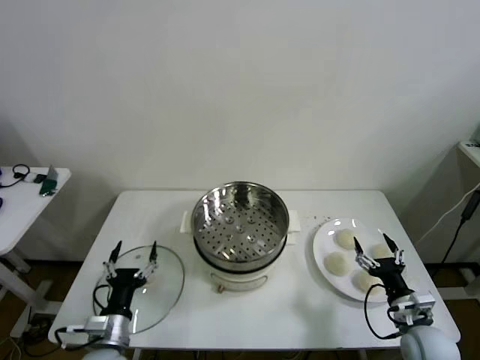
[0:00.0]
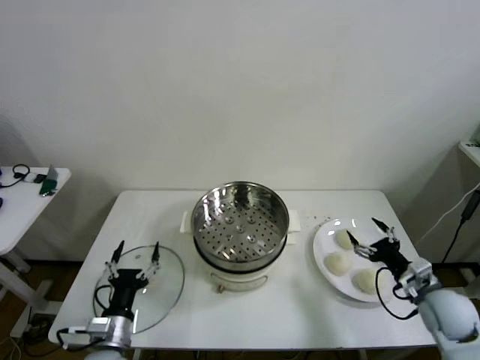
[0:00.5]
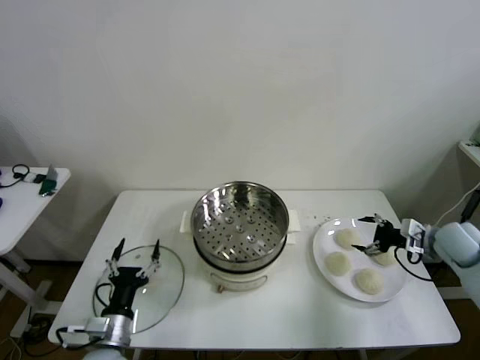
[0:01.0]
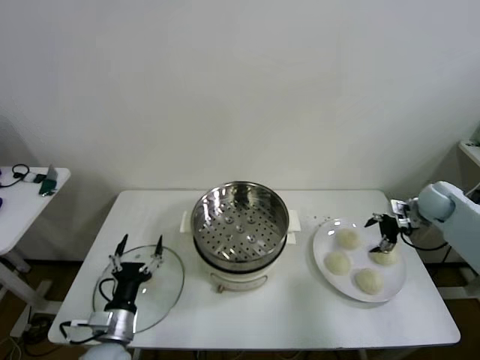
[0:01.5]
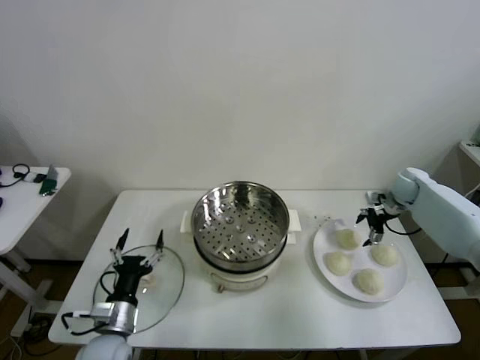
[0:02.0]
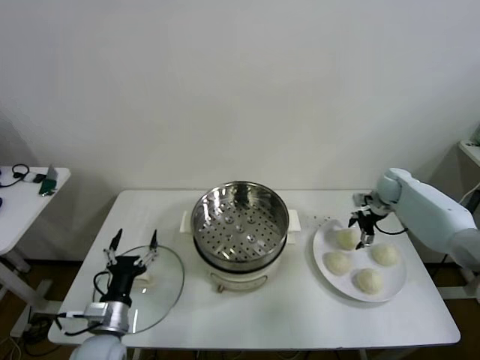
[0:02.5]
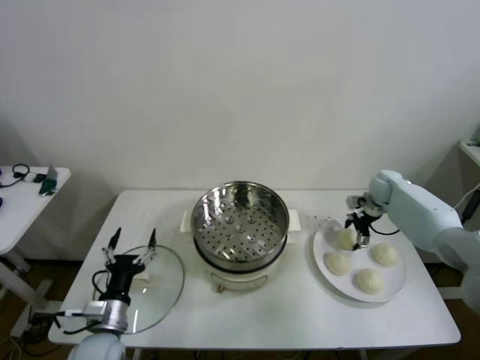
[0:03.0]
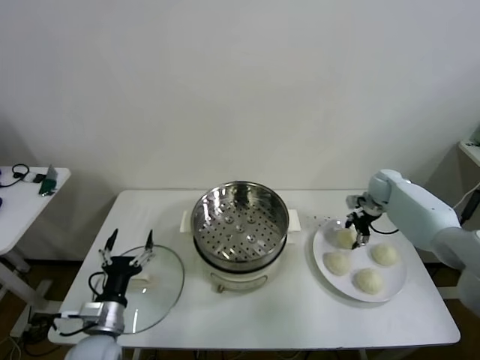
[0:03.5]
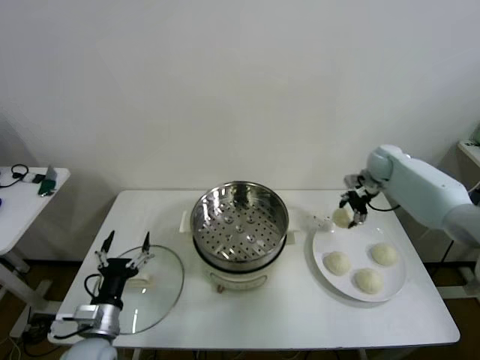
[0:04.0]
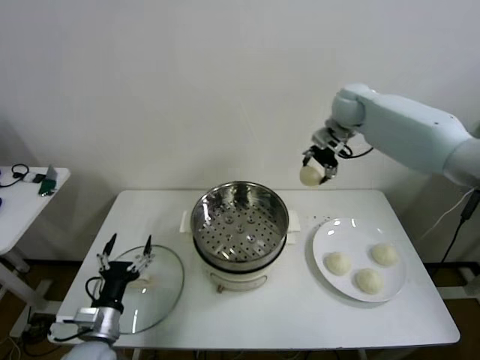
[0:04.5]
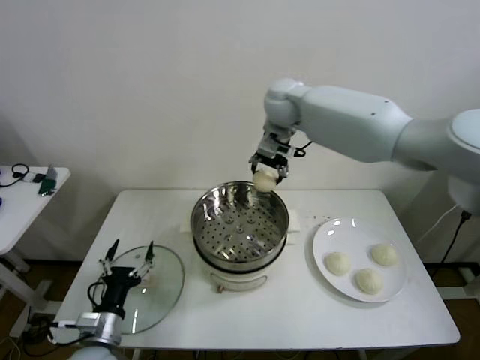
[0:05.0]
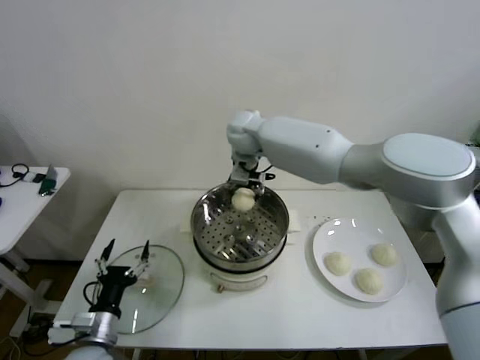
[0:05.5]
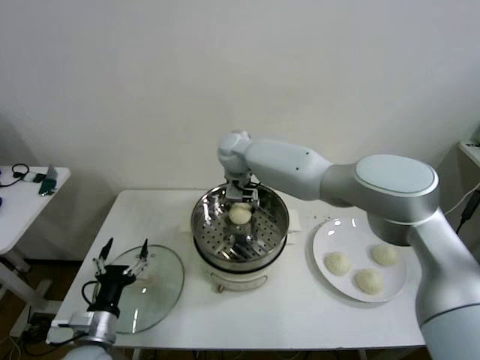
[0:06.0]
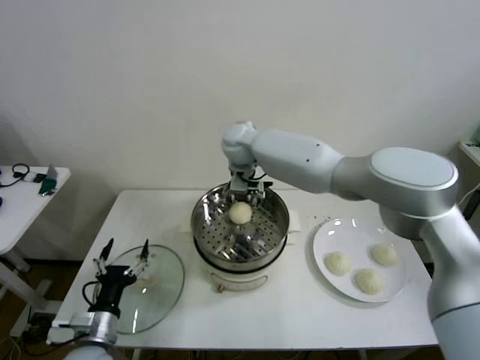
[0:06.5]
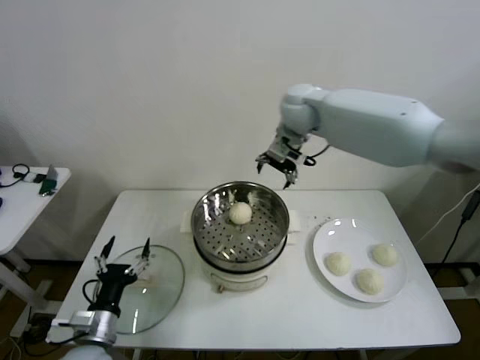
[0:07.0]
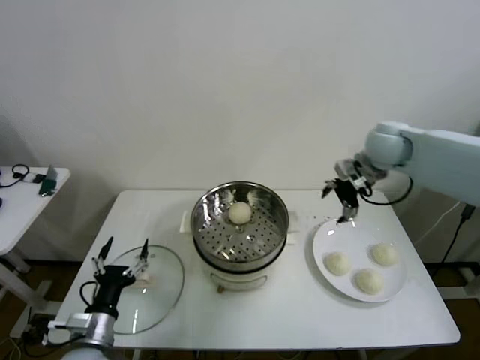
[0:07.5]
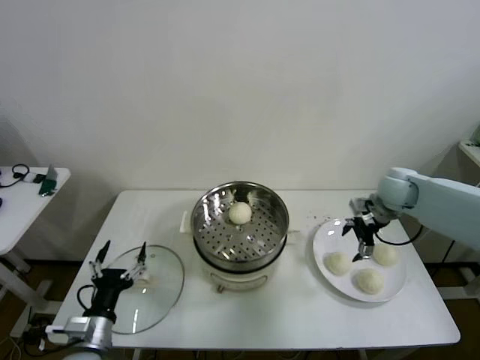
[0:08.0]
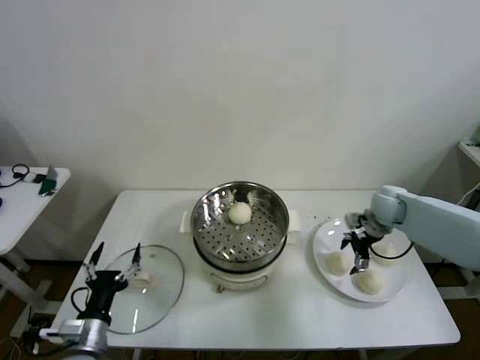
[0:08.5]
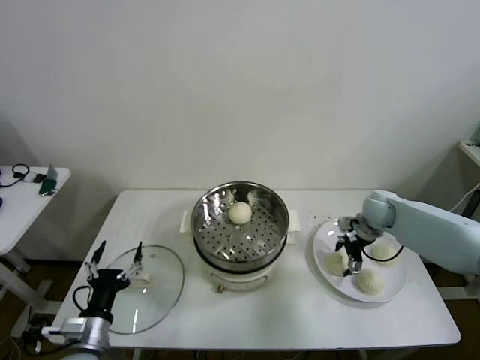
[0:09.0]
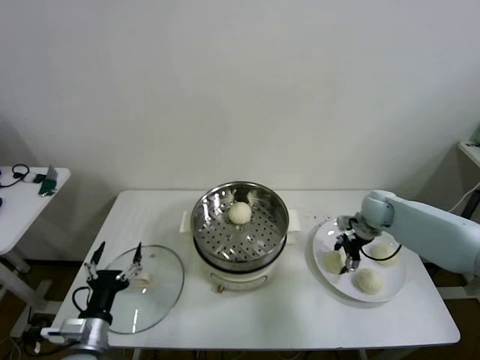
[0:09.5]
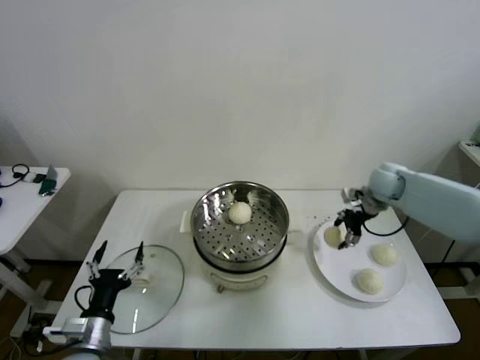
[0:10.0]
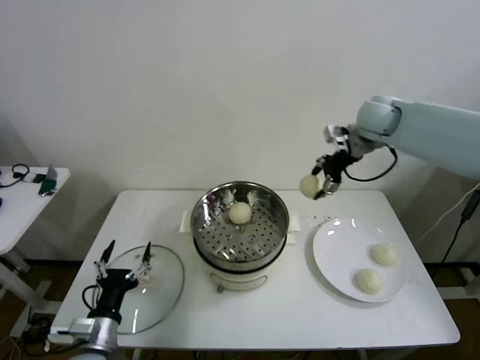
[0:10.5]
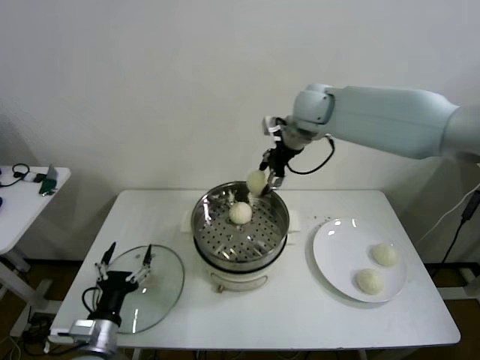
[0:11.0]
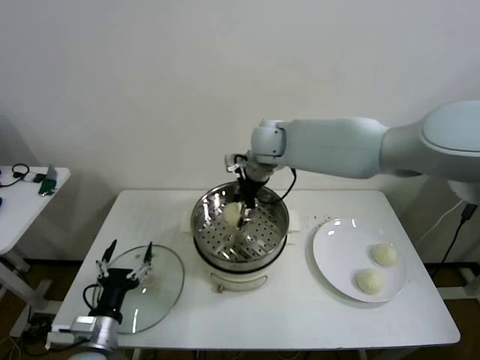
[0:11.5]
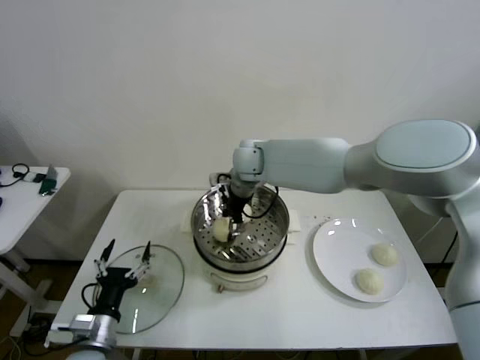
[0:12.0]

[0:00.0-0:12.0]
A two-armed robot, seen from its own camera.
Step, 0.0 to 3.0 s: Grasp the baozi in the plate with right gripper.
Step, 3.5 to 6.0 s: Place the baozi on the steamer with right gripper.
Step, 6.5 to 9.0 s: Grasp the baozi in the plate with right gripper.
2.0 to 4.0 s: The right gripper shifts about 10 cm upward and to the left, and closes up.
4.0 to 6.0 s: The right gripper travels to the left by approximately 40 cm, and opens its fingers.
6.0 to 8.0 s: The right gripper heads to the right, covering roughly 40 cm.
8.0 to 10.0 s: The right gripper reaches approximately 10 cm downward, then returns, and closes up.
10.0 to 12.0 s: The right gripper moves to the left, approximately 35 cm.

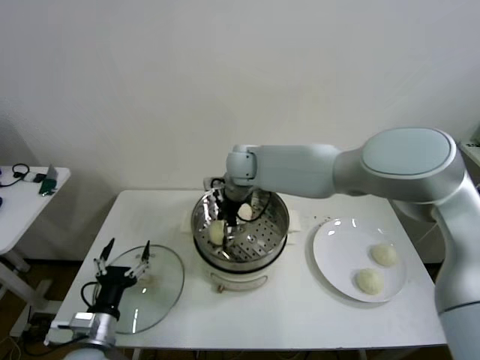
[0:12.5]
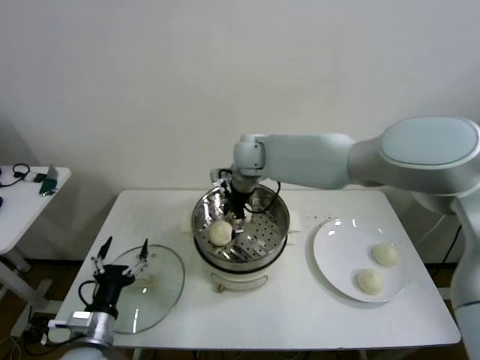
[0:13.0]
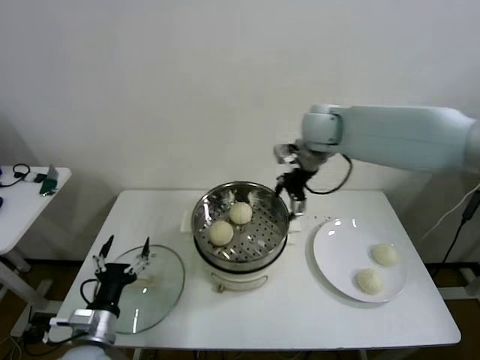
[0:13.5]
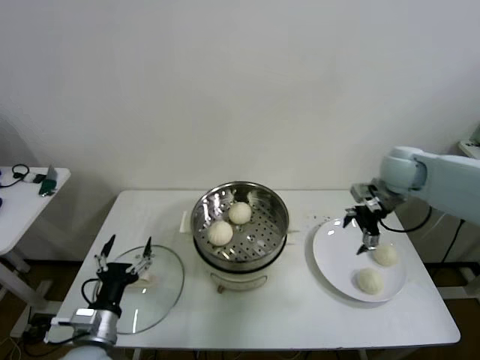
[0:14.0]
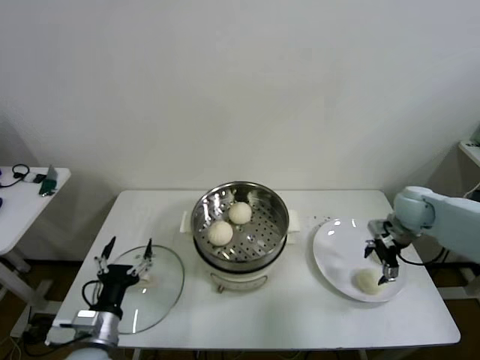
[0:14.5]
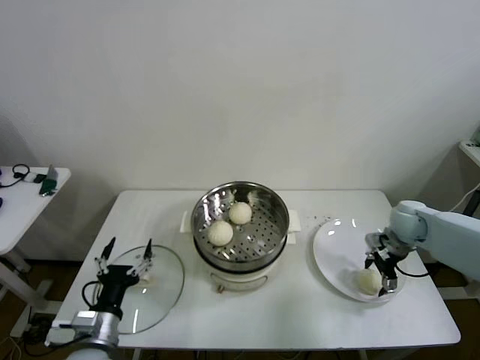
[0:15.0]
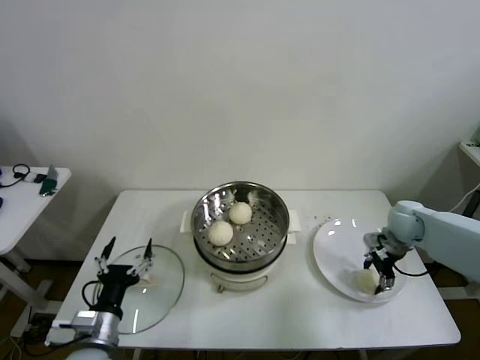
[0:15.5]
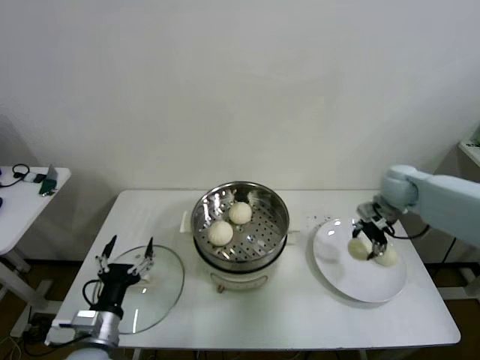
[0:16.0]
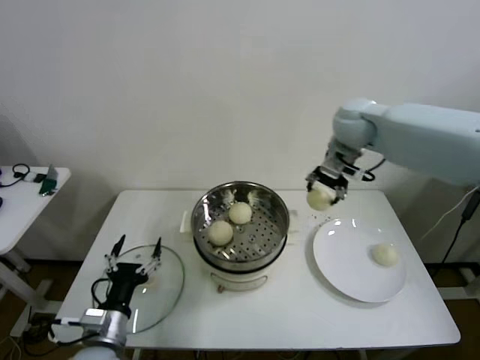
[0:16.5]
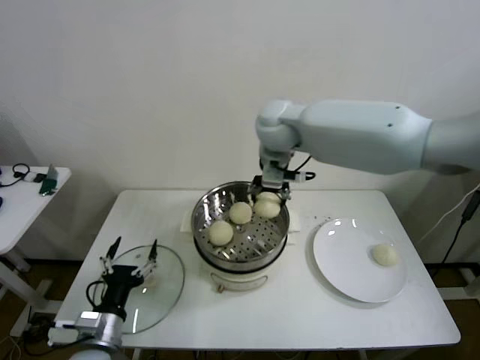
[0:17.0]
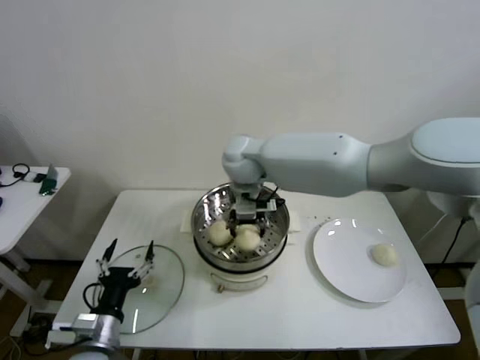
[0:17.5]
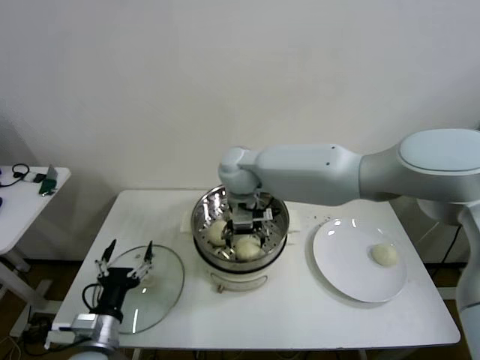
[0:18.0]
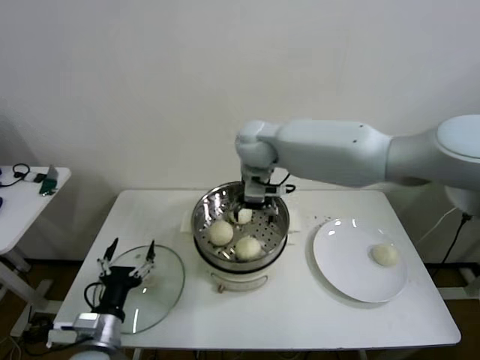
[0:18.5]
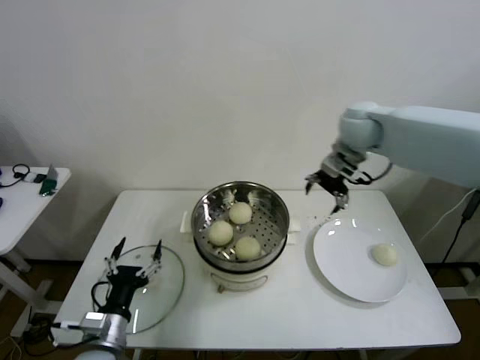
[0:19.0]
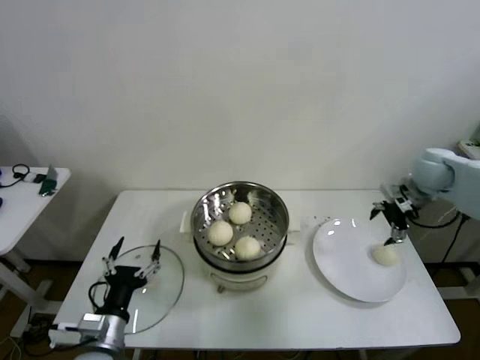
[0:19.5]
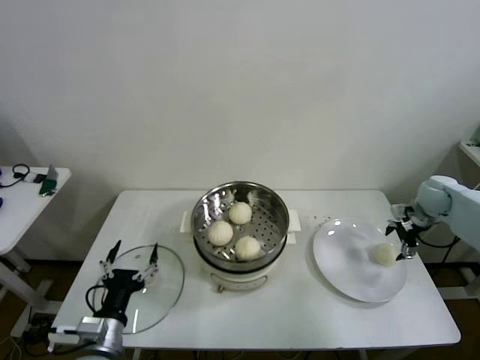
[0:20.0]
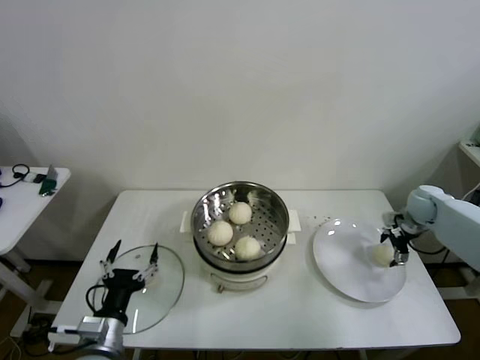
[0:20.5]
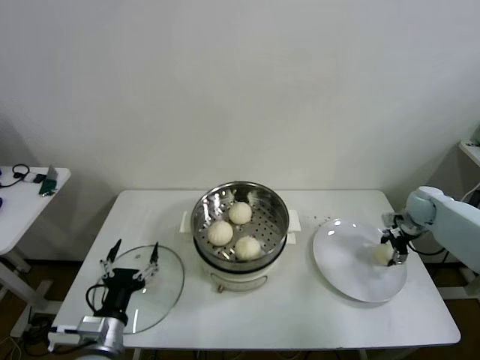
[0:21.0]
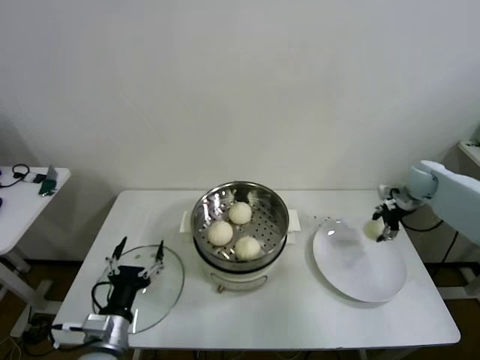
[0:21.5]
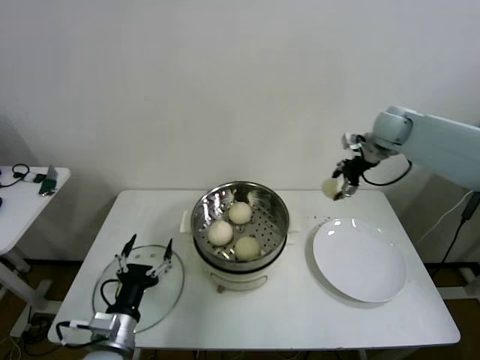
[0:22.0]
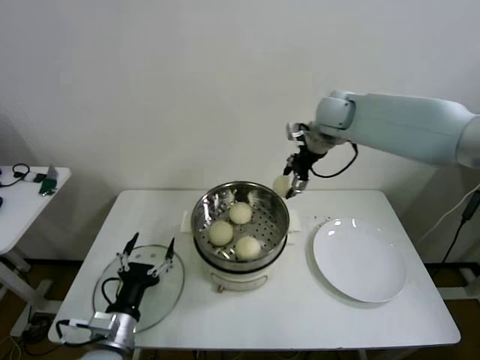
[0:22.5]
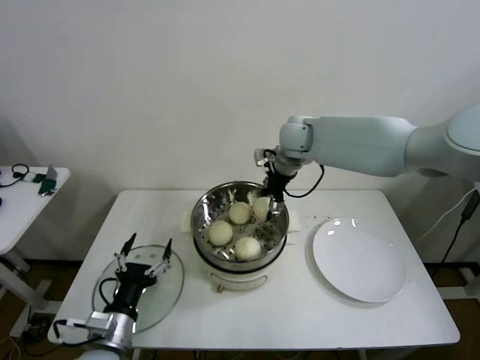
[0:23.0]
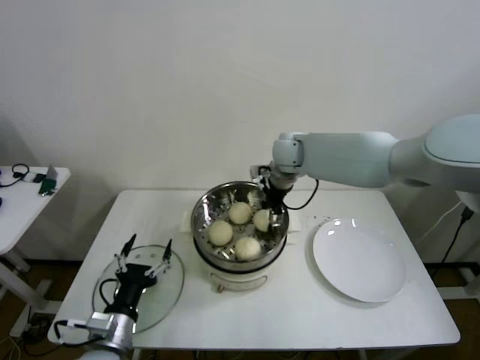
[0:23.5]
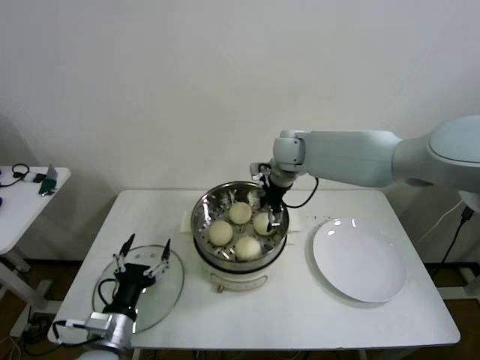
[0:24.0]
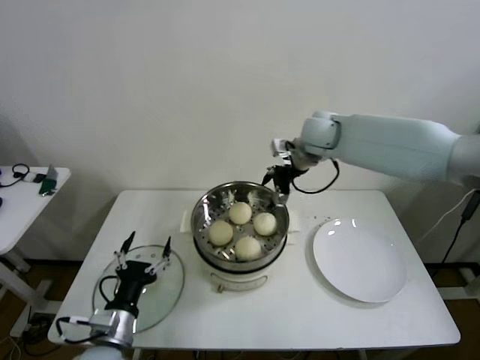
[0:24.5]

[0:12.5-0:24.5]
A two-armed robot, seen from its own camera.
Step, 13.0 to 15.0 s: Grasp the baozi in the plate with right gripper.
Step, 15.5 to 18.0 s: Place the baozi on the steamer with right gripper.
Step, 18.5 to 20.5 s: Grasp the baozi in the plate with right gripper.
Step, 21.0 to 23.5 s: Place the baozi on the steamer with right gripper.
12.5 to 14.5 s: The right gripper travels to the right by some 40 cm, and opens up.
14.5 to 16.5 s: The right gripper shifts roughly 25 cm upward and to the left, and closes up.
16.5 to 18.5 s: The right gripper is displaced to the left by about 20 cm, and opens.
18.5 to 20.5 s: The right gripper heads to the right and downward, covering roughly 50 cm.
20.5 to 22.5 s: The right gripper heads to the left and upward, covering some 35 cm, and closes.
22.5 to 24.5 s: The right gripper opens its fingers.

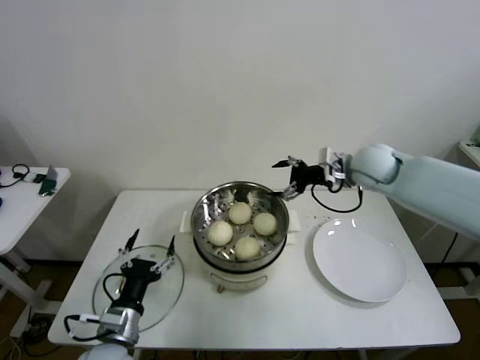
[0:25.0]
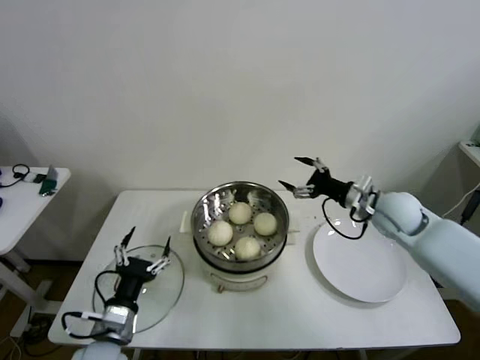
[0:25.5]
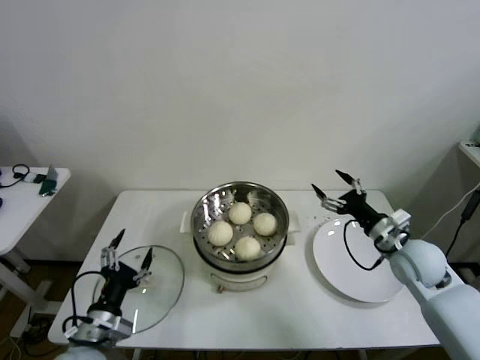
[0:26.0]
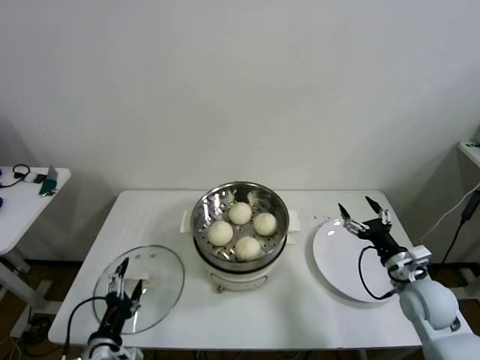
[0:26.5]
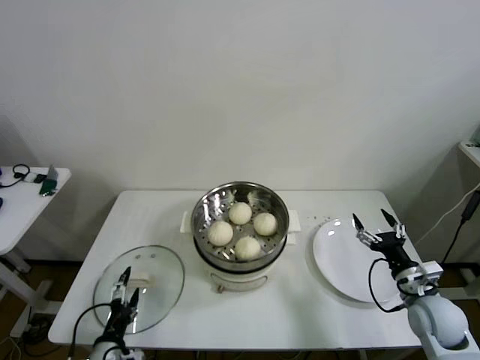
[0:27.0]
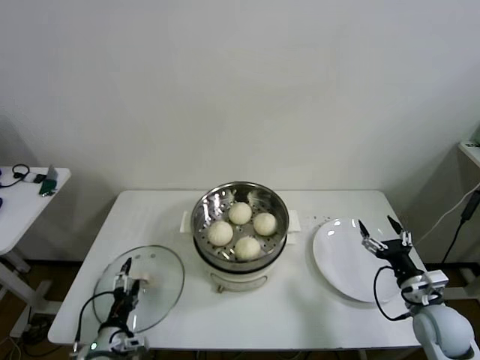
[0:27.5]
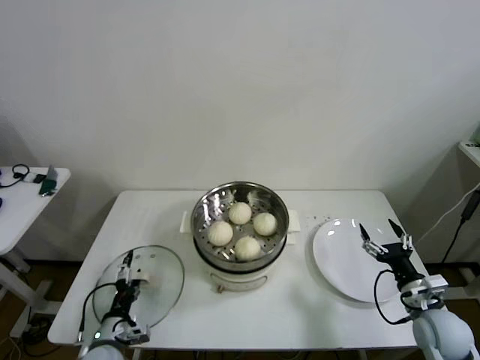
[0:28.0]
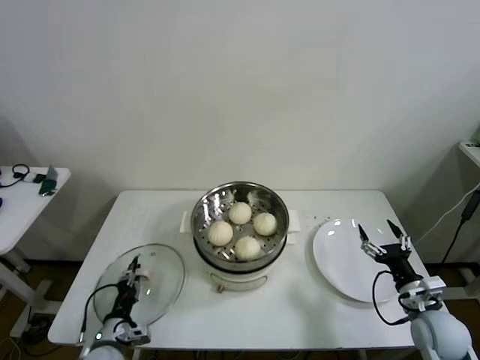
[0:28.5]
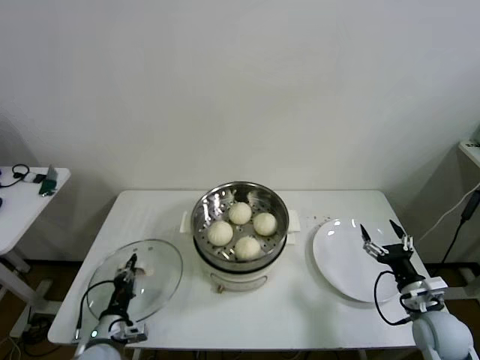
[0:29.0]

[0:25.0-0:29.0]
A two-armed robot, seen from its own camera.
Step, 25.0 to 28.5 s: Grasp the pot lid with left gripper.
25.0 to 27.0 s: The right gripper goes roughly 35 cm backward, downward and to the right; the left gripper is displaced downward by roughly 10 cm.
27.0 to 29.0 s: The left gripper is displaced forward by approximately 5 cm, and closes.
